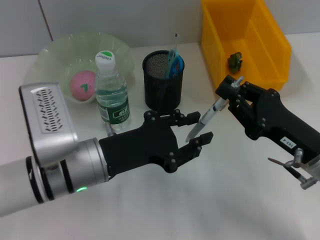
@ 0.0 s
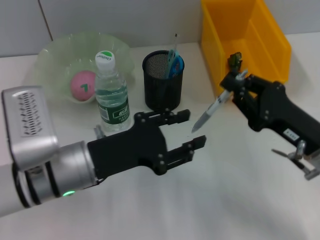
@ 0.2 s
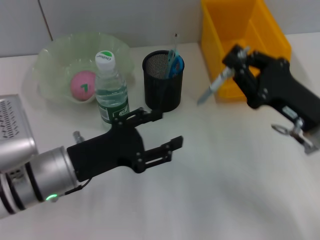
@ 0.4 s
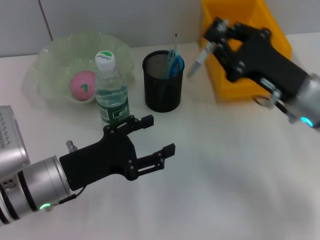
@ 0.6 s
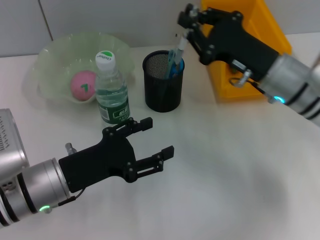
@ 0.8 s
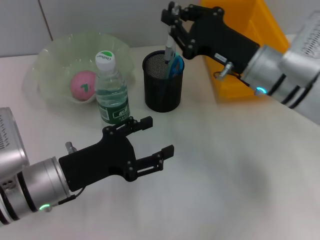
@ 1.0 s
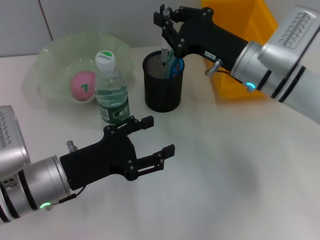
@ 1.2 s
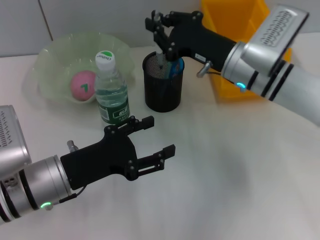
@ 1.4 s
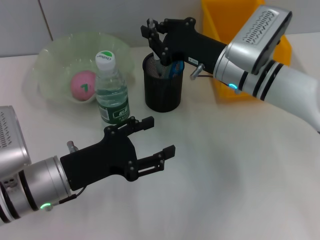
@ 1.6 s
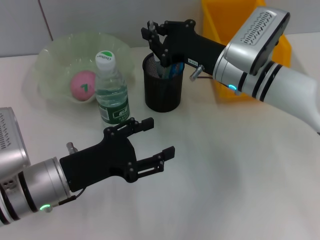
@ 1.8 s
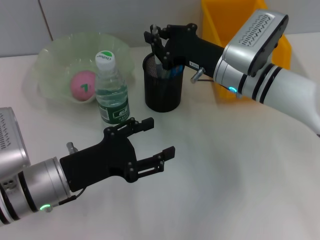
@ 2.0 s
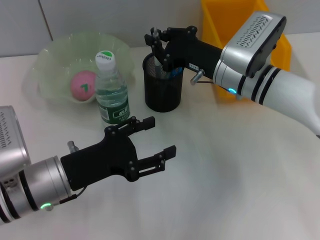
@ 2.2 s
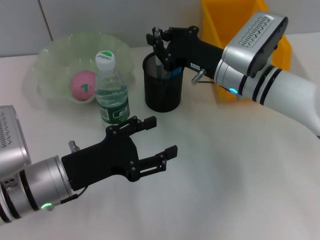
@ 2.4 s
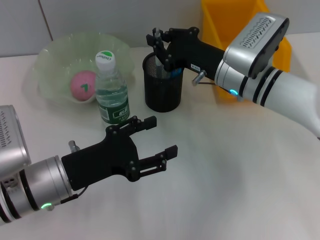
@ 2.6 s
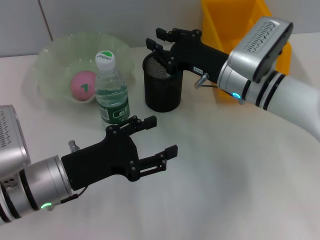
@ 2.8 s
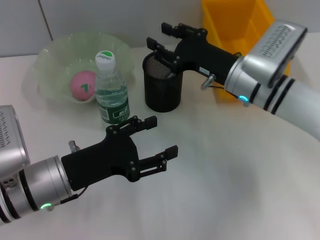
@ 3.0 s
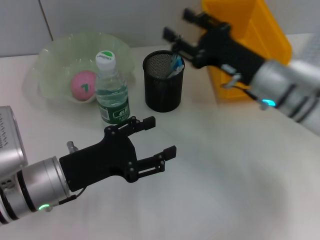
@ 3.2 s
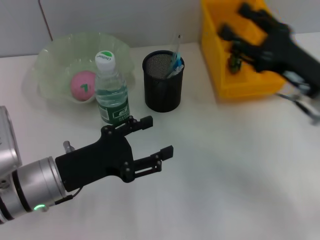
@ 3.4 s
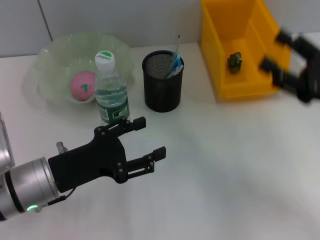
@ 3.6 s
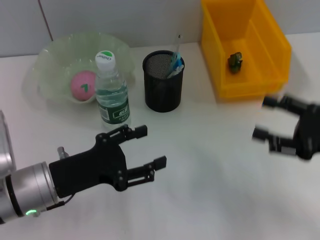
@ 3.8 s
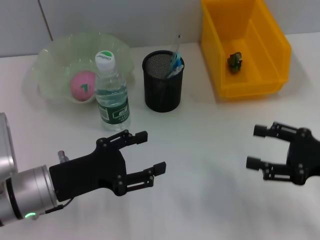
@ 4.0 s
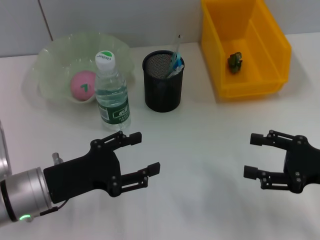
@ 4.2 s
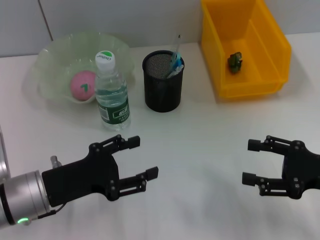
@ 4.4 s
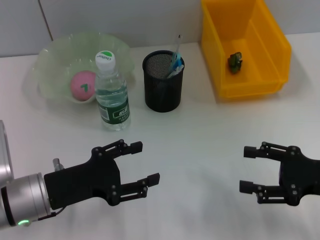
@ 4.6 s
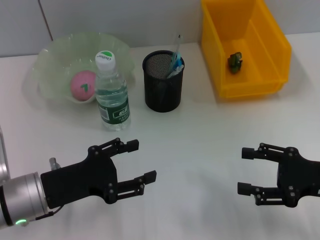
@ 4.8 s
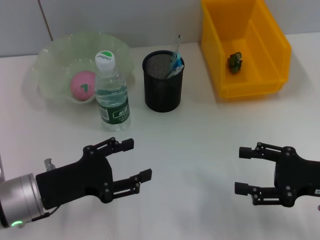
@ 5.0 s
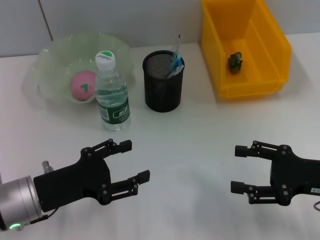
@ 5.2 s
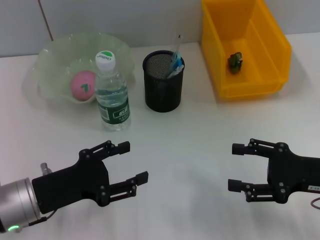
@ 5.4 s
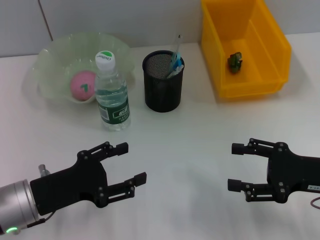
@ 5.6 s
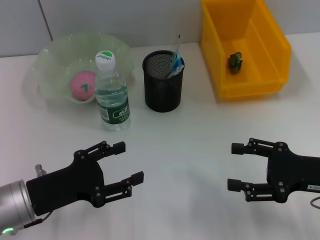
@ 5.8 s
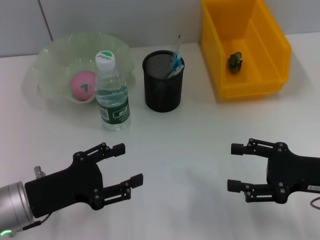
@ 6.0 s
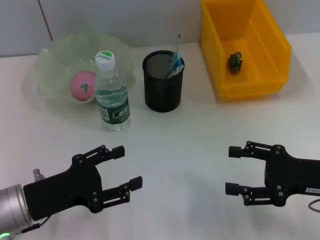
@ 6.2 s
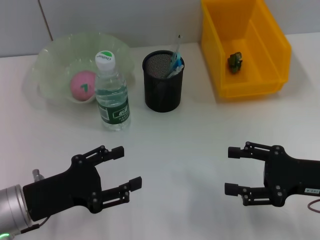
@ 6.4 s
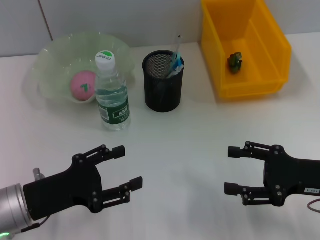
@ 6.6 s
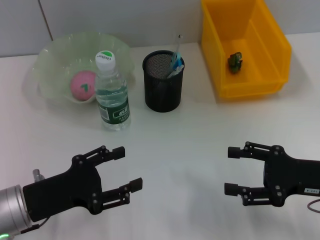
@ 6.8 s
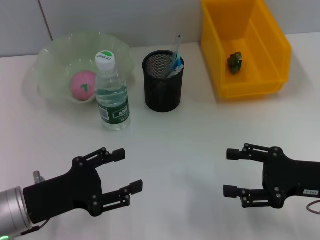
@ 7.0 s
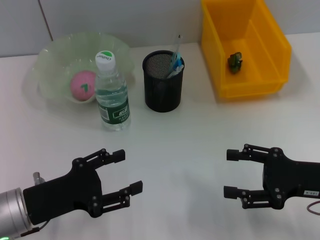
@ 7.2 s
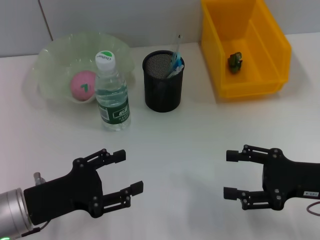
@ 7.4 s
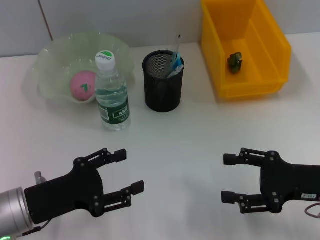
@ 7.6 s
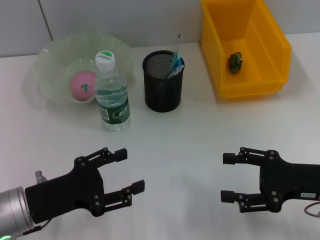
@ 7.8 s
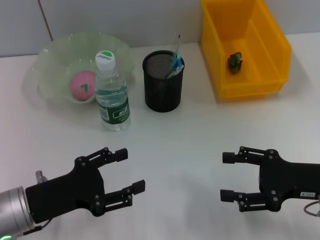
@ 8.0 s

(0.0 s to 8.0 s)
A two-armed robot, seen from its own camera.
Step, 0.2 s - 2.6 s: Place the gray spring-action pen into the pen holder with the right hand.
0.0 s - 1.6 s: The left gripper heads to the left, covering about 5 cm, and opens up. Meanwhile the right gripper heads forward and to the left, covering approximately 20 cm.
1.6 s - 3.2 s: The right gripper ends up roughly 5 cm from where it was.
3.2 s - 4.8 s: The right gripper is displaced backward and to the right by approximately 15 cm, and opens.
4.8 s - 6.4 s: The grippers stay close to where they were, moving slightly.
6.4 s - 8.0 s: The two grippers keep their place.
